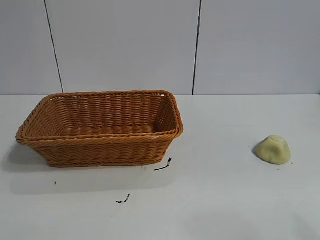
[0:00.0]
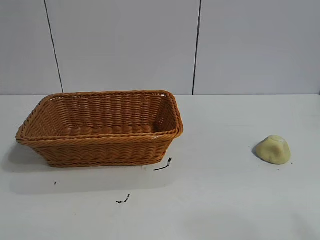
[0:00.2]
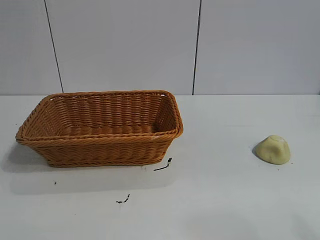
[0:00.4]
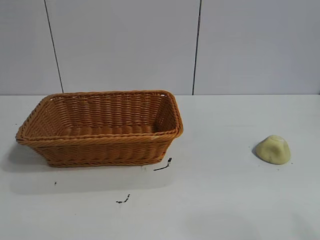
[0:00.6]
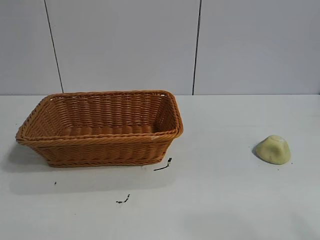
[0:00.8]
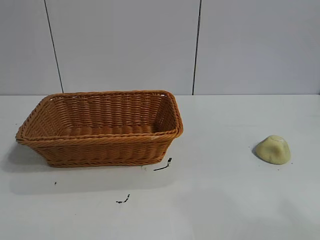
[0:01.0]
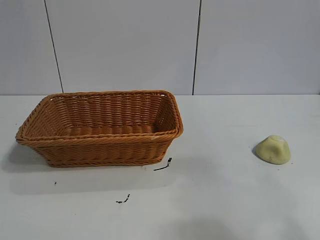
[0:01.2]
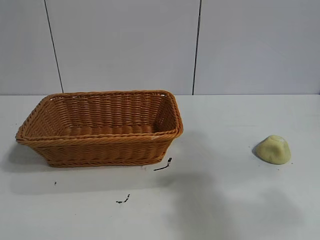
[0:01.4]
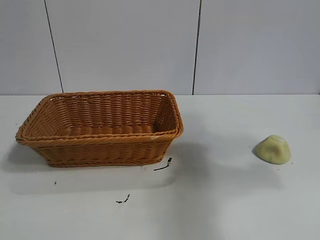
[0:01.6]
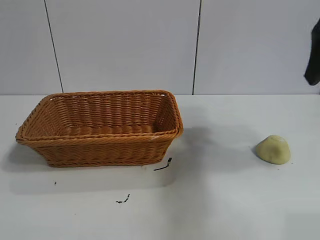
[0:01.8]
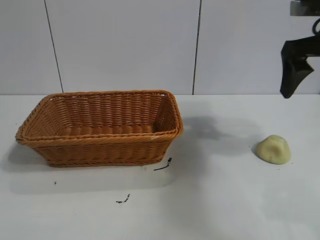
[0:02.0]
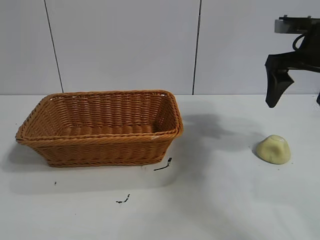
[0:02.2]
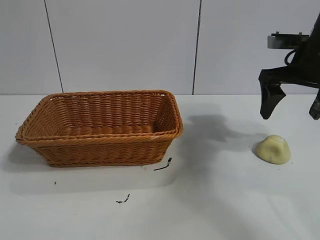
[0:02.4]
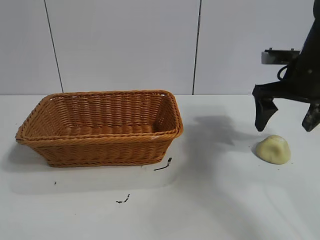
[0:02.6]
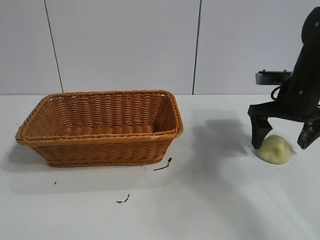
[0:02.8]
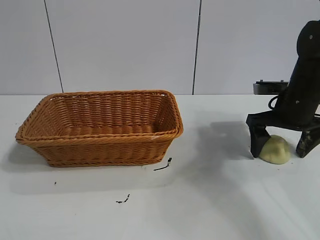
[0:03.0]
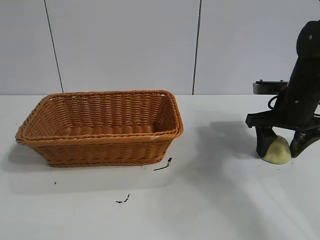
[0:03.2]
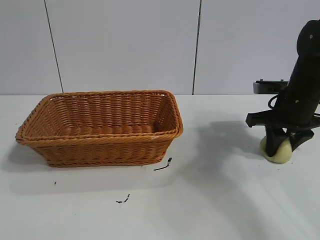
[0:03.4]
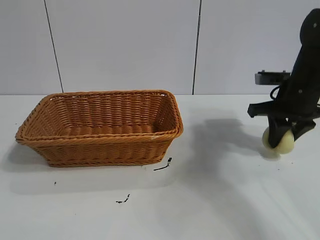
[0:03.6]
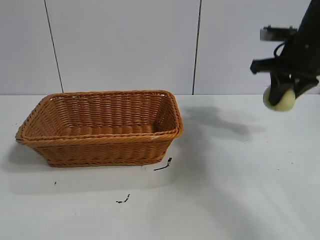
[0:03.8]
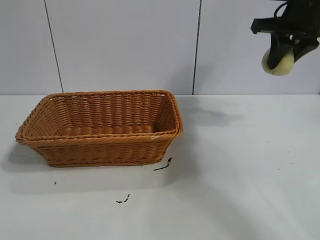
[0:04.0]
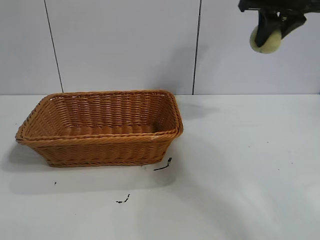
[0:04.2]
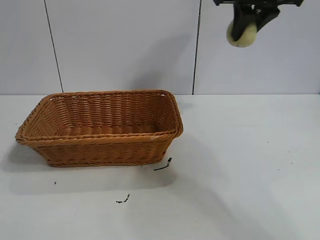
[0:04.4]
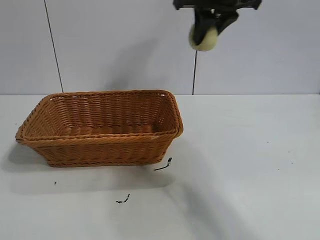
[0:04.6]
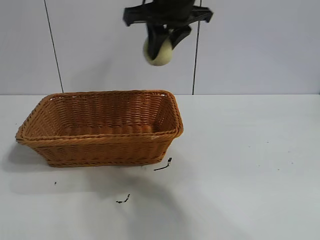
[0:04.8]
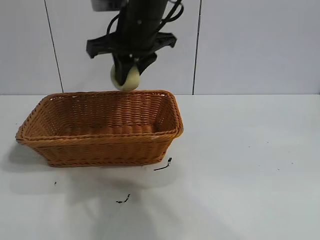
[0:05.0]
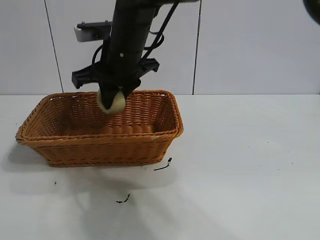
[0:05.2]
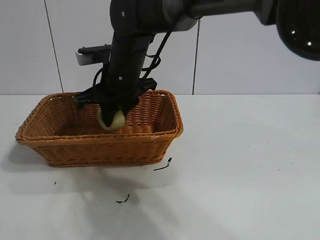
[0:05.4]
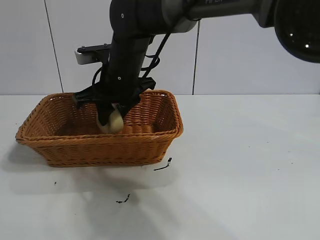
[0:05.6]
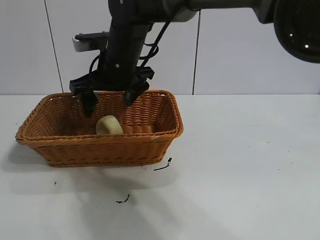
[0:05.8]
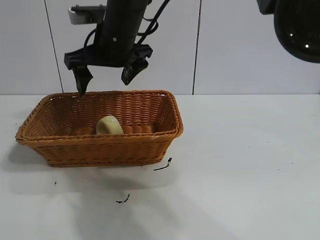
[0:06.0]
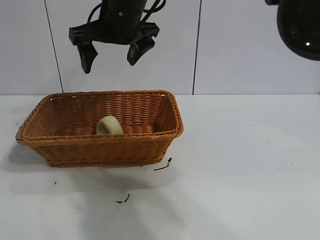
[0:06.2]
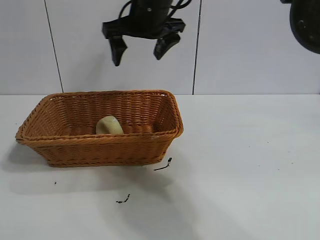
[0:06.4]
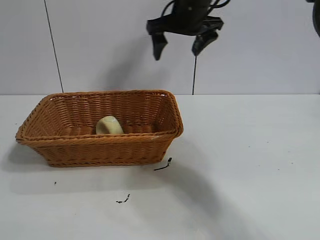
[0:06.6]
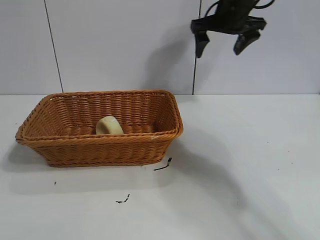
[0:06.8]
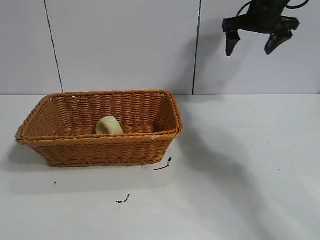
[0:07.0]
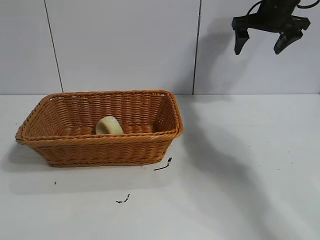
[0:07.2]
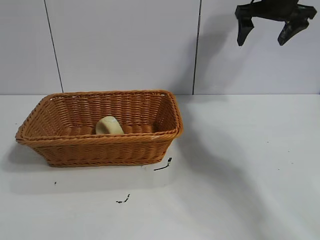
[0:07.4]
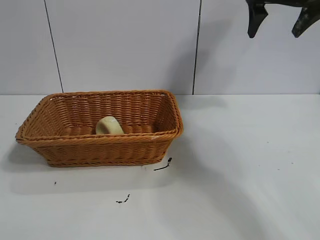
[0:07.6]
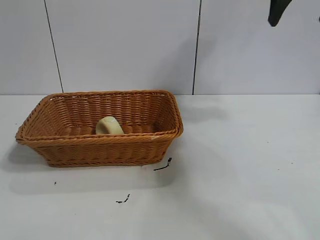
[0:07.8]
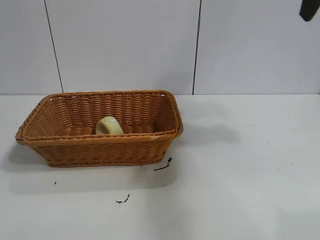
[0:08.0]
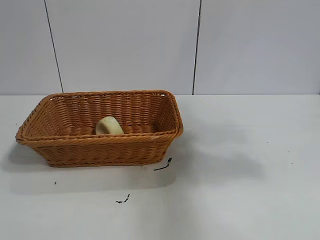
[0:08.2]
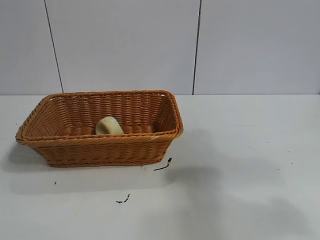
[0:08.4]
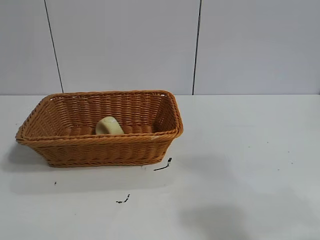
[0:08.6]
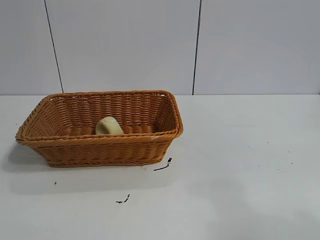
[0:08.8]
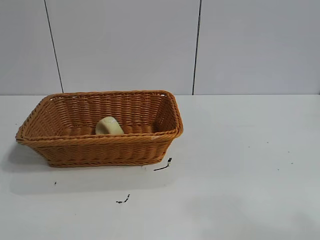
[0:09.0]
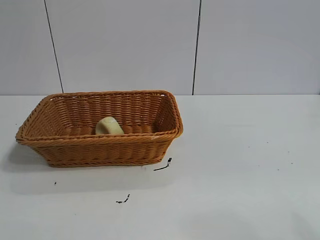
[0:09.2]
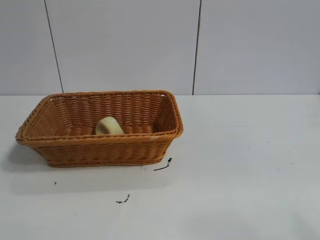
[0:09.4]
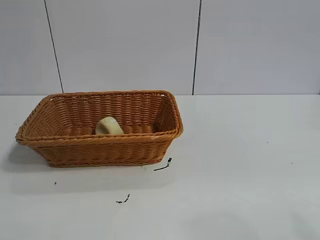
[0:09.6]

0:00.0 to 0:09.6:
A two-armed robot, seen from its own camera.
Task of the whole recording: pick up the egg yolk pastry and put it into the basket.
Step, 0:00.8 to 0:03.4: Grasp egg yolk pastry with right gripper.
Step, 0:03.6 to 0:05.6: Place the egg yolk pastry in the basket with right gripper.
